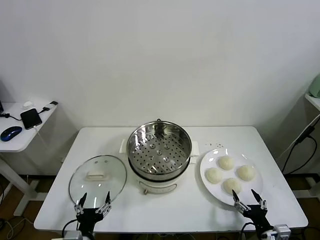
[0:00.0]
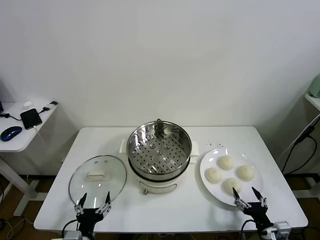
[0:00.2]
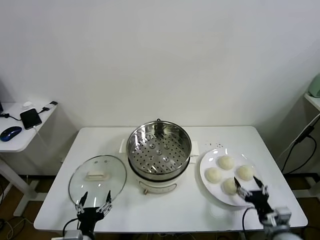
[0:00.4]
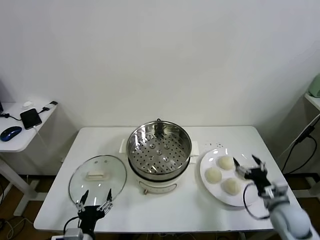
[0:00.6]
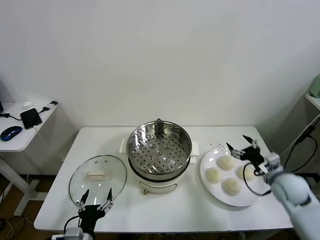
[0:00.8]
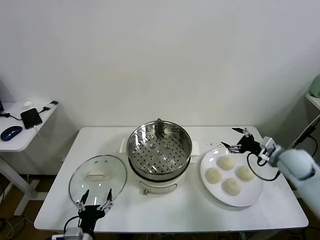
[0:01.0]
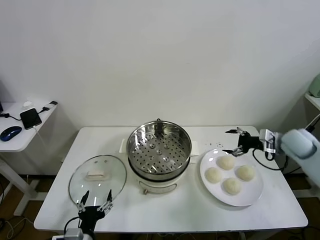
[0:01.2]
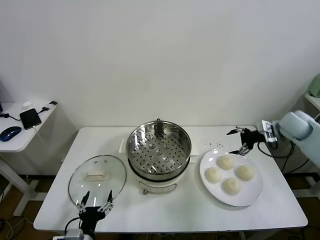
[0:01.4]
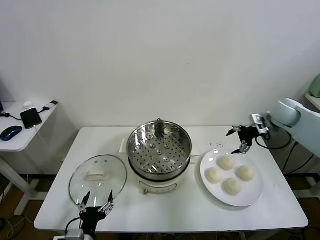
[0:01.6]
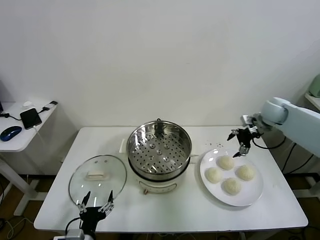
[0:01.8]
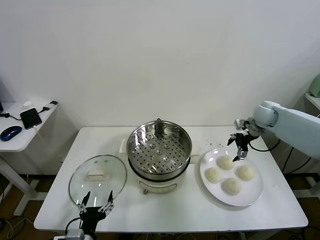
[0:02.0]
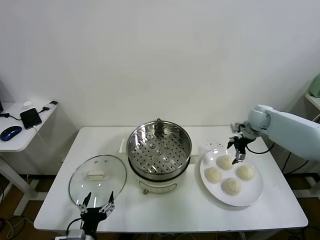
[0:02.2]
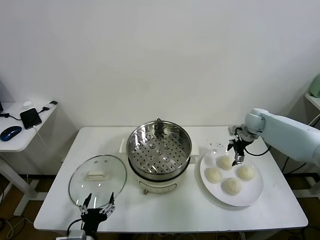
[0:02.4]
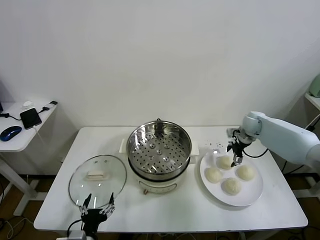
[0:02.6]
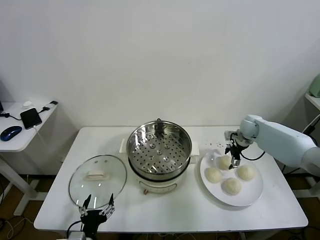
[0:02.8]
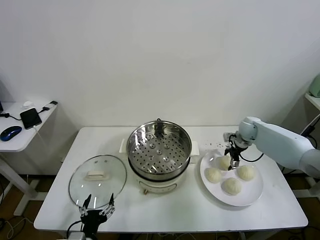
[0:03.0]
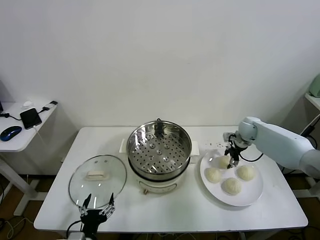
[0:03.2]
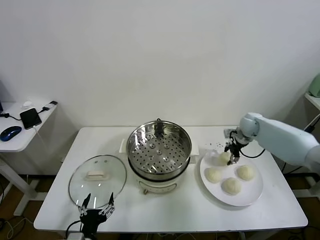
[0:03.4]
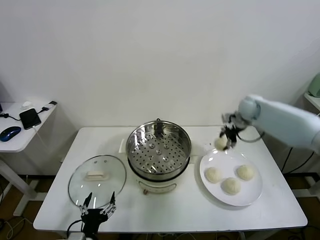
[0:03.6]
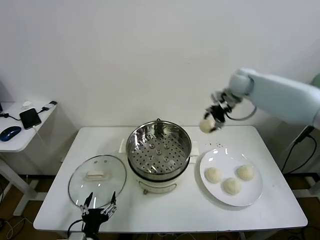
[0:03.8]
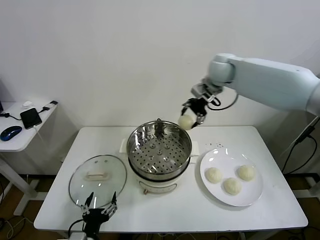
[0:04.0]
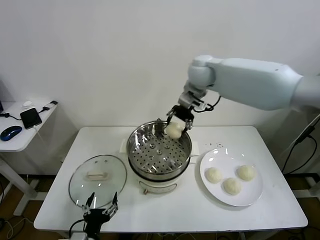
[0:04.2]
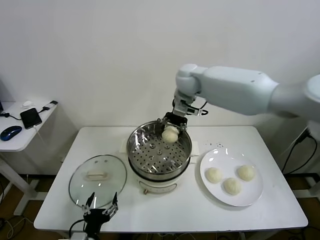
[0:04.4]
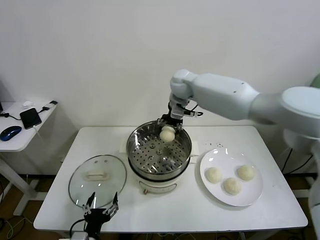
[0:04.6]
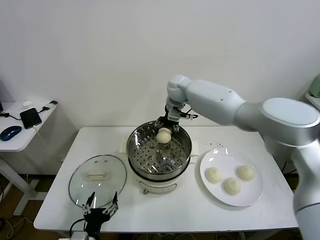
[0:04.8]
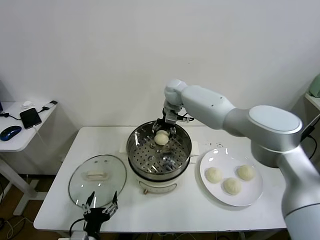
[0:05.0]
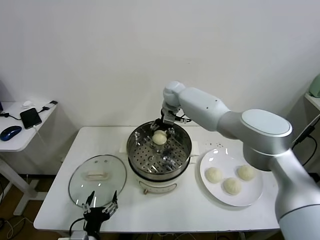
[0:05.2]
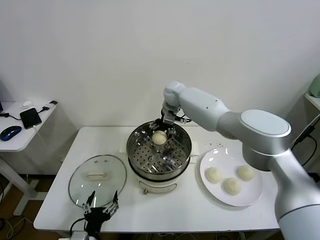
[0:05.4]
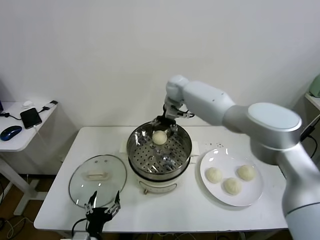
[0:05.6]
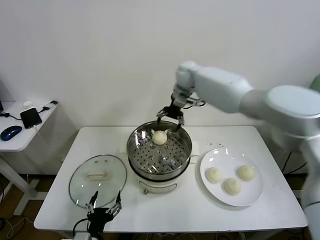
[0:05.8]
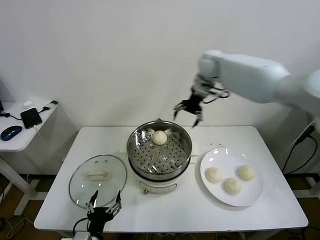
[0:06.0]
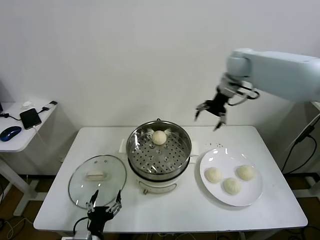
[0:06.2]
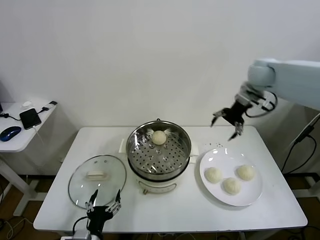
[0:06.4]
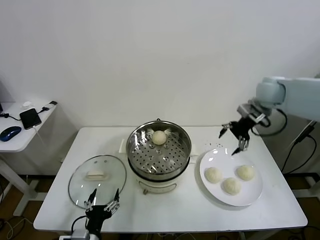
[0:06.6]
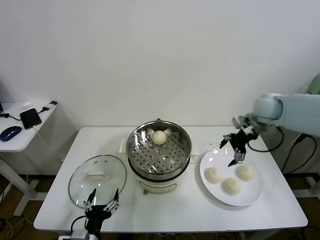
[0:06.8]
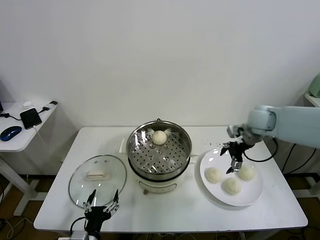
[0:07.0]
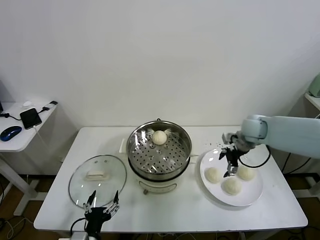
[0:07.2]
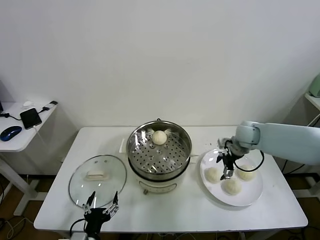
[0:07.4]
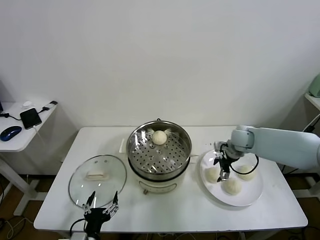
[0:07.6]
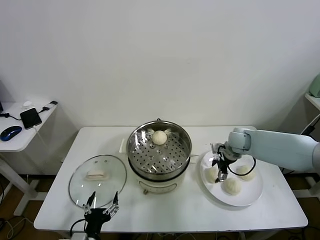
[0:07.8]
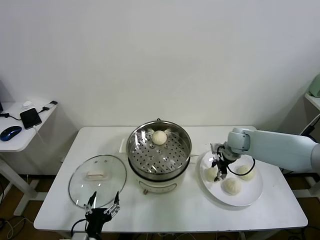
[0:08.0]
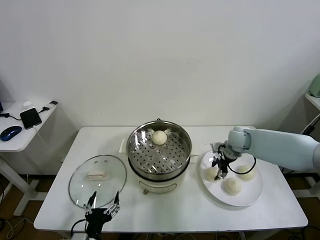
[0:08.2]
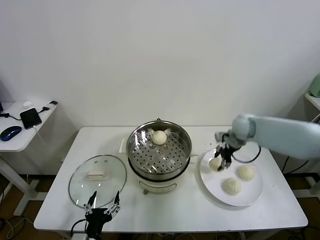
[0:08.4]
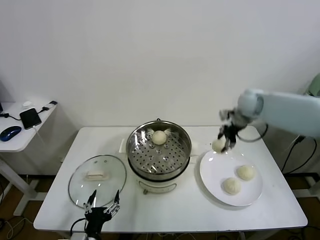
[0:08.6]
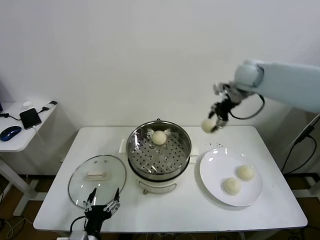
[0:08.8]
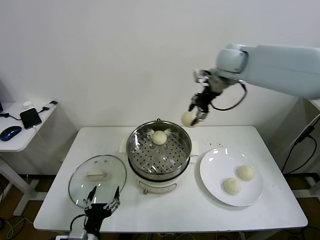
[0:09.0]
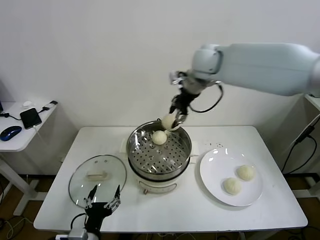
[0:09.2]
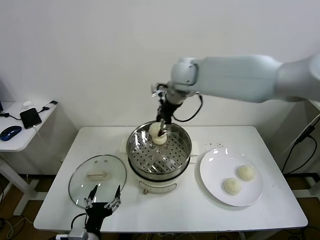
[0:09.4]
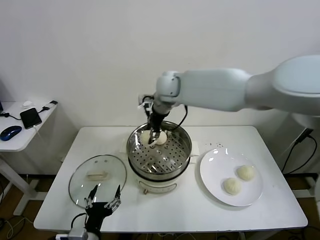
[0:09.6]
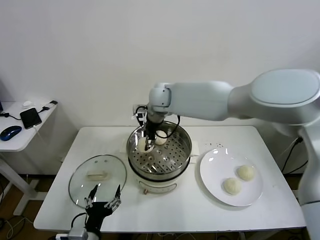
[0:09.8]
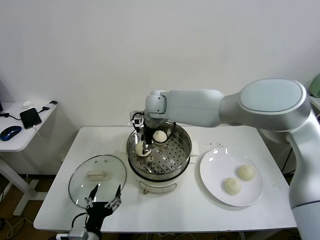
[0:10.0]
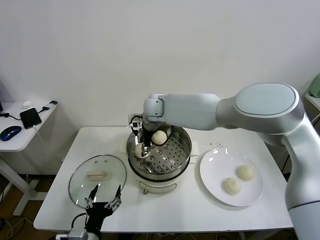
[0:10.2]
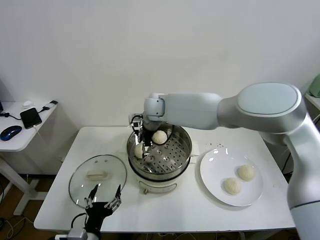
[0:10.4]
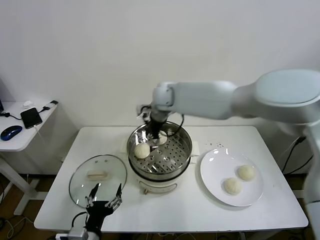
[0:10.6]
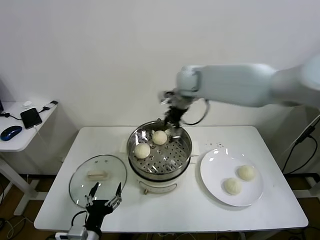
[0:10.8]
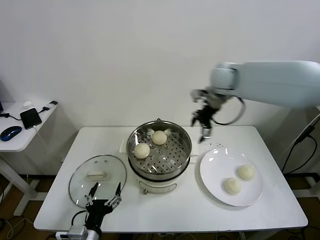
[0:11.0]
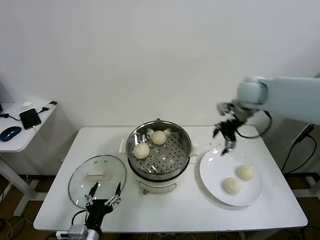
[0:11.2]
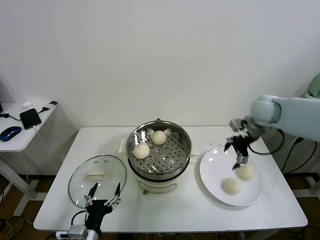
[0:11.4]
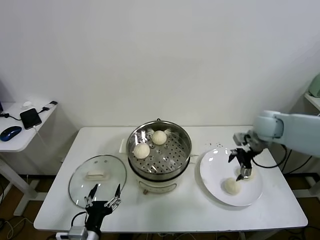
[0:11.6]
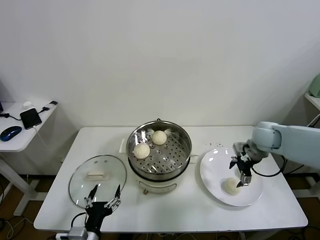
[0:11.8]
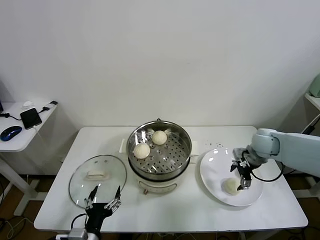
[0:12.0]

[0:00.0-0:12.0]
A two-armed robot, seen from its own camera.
Task of the whole recording: take steamed baozi put them in steamer.
Step, 0.0 to 3.0 s: Grasp the baozi in the plate with right gripper.
Step, 3.2 to 5.2 s: Place the baozi on the steamer with right gripper.
Step, 5.4 to 7.8 s: Grasp the baozi in the plate with right gripper.
Step, 8.0 to 10.2 s: Place the baozi on the steamer with right gripper.
1.6 to 3.0 s: The right gripper shifts some 10 cm downward, and closes its fingers.
3.0 to 4.4 s: The right gripper travels to the left and upward by approximately 35 cm.
4.4 to 6.0 s: The right gripper goes roughly 20 cm to the right, and opens its fingers.
6.0 to 7.6 s: The right gripper moves downward, about 25 cm.
7.6 to 9.0 s: The right gripper travels upward and to the left by approximately 35 cm, and closes.
9.0 to 10.4 s: The right gripper goes approximately 20 cm to the left and downward, and opens its fingers.
10.4 to 12.0 s: The right gripper goes approximately 35 cm to the right.

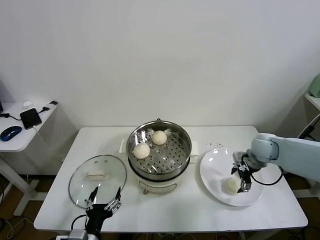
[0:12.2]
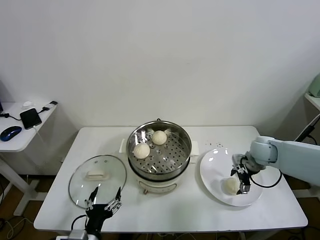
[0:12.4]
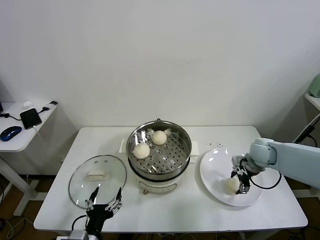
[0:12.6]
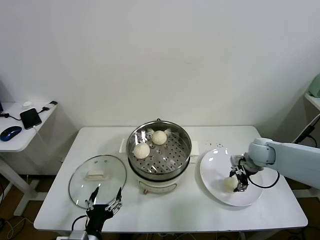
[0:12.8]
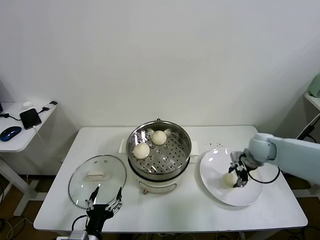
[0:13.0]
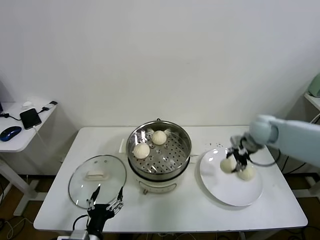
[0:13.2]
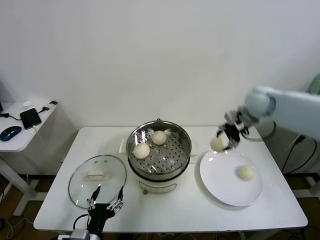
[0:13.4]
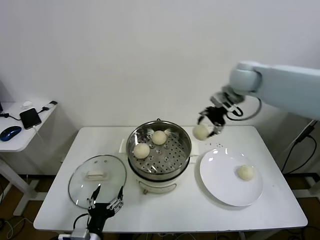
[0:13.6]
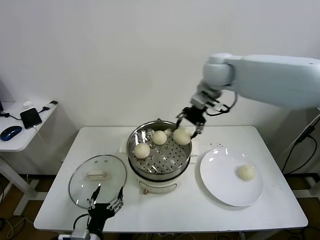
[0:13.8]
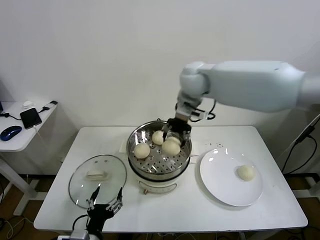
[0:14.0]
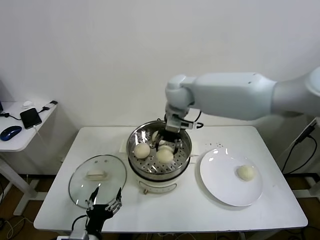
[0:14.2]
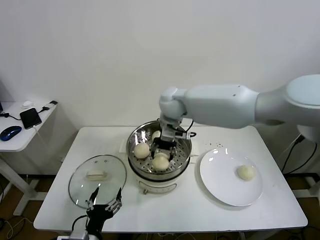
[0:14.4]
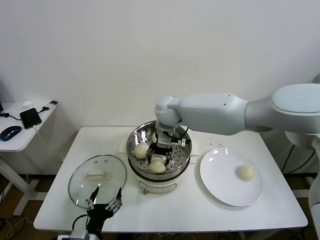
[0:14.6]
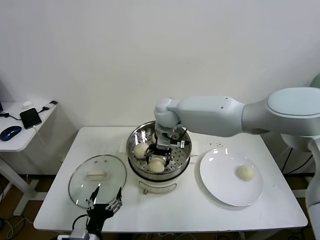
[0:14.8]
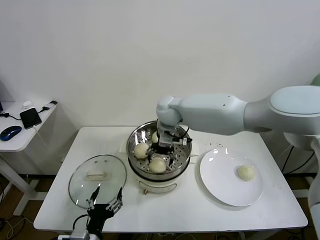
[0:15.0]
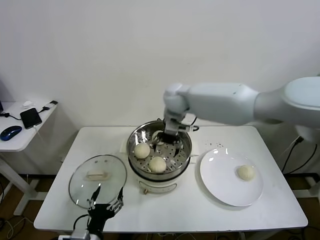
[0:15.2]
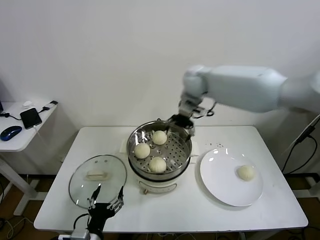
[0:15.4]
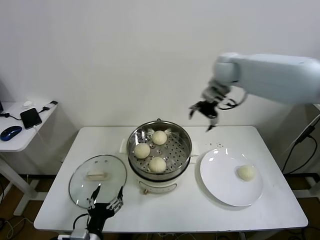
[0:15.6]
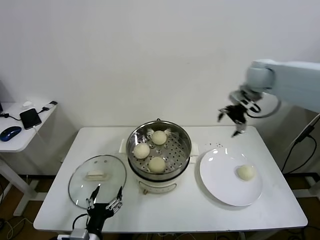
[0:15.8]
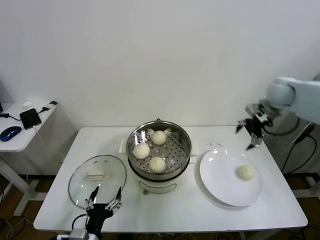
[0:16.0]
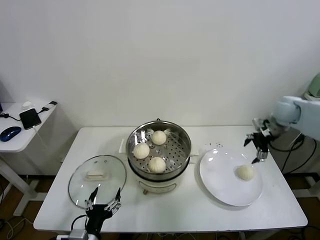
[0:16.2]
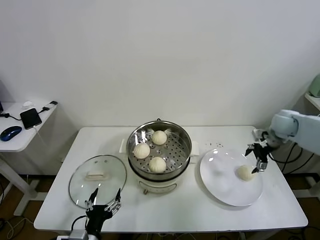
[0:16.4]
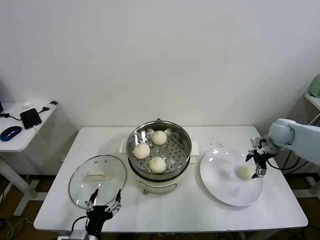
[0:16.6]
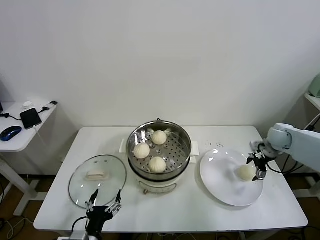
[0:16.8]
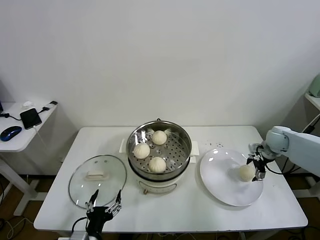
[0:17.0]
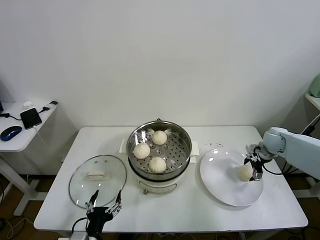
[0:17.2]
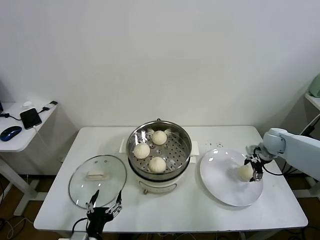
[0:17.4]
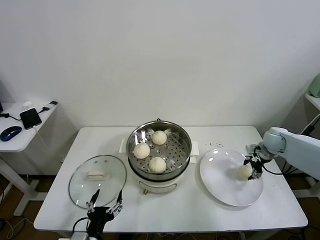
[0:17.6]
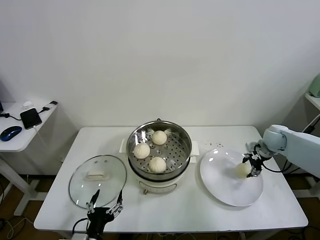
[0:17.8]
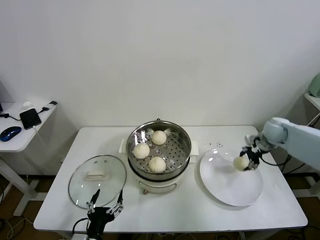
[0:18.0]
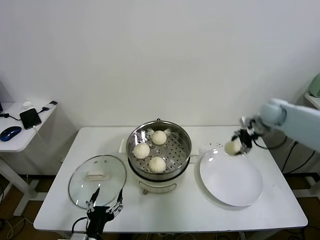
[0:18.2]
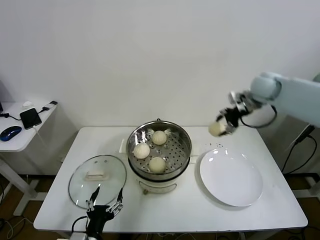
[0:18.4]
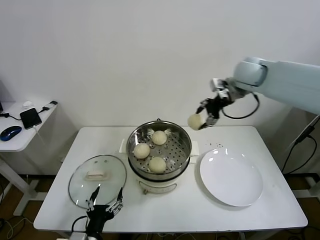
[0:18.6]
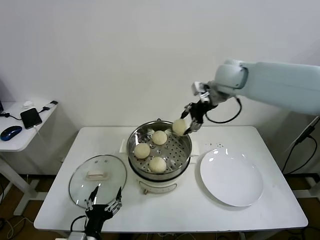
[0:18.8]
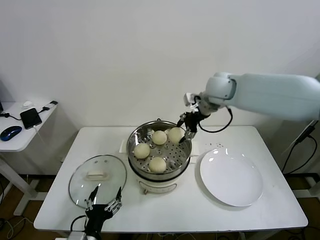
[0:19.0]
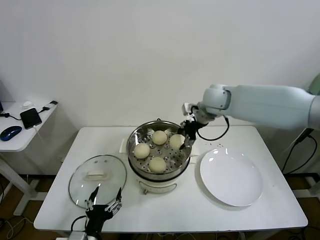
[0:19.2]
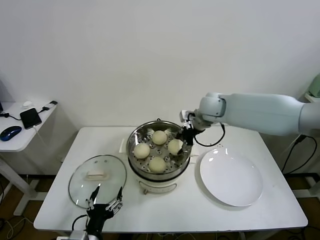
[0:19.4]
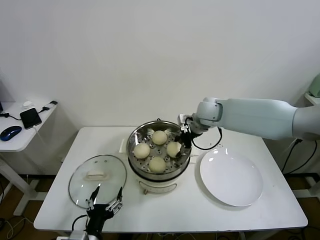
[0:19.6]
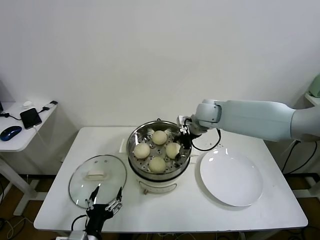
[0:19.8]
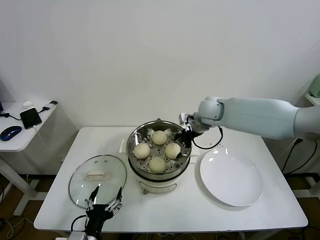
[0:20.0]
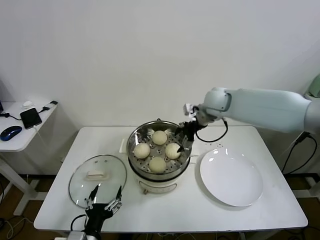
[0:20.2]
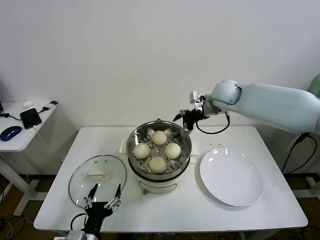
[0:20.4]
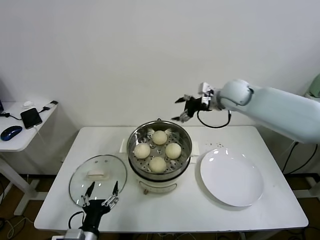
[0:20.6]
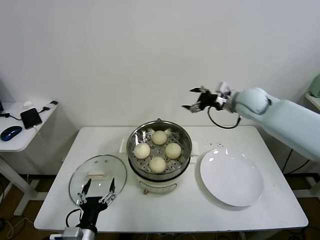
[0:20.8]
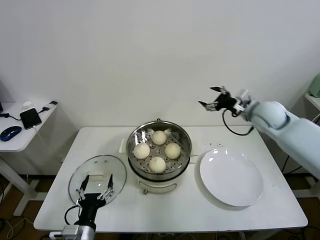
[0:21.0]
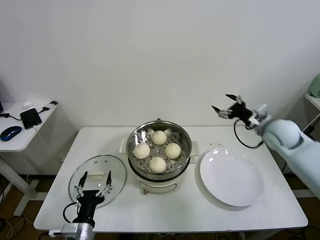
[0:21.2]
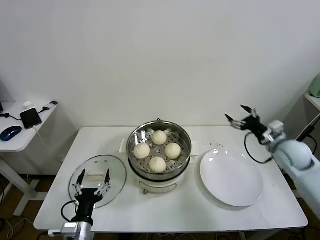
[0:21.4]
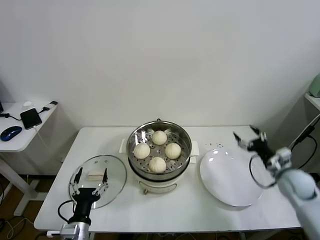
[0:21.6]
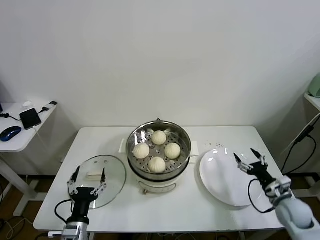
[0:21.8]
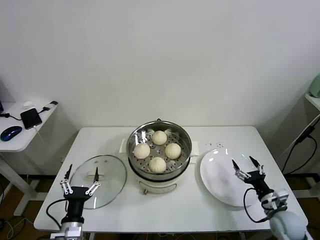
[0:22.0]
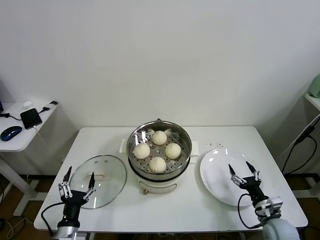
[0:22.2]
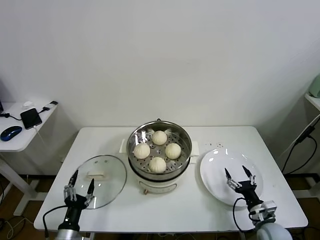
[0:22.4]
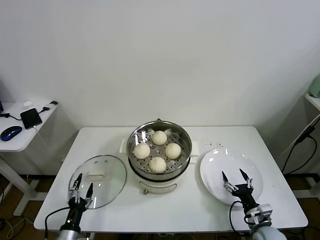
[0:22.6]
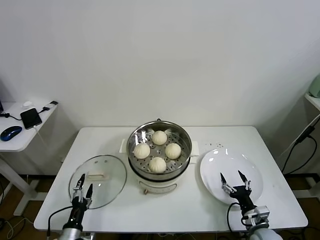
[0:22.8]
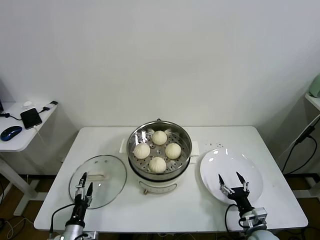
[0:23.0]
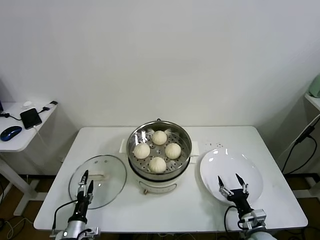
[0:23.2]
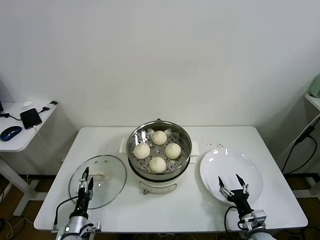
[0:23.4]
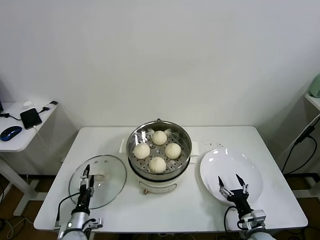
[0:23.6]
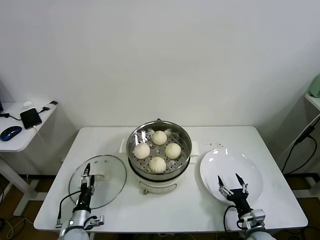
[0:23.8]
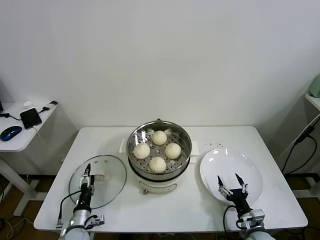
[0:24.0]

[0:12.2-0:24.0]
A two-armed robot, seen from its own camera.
Task of the whole recording: take steamed baozi put them in steamer.
Step, 13.0 to 15.0 s: Place the baozi on the steamer with right gripper.
Step, 15.2 to 17.4 s: Grasp the baozi in the plate with right gripper.
Step, 17.6 to 20.0 s: Place the baozi on the steamer with right gripper.
12.2 to 13.6 s: The right gripper travels upward and to the left by some 30 cm, and closes up.
13.6 to 15.2 s: The right gripper heads to the left and downward, covering some 15 cm, and opens up.
15.2 to 16.6 s: The right gripper shifts about 40 cm to the right and downward.
16.6 to 18.2 s: The right gripper shifts about 10 cm upward and to the left, and closes its fingers.
18.2 to 19.6 s: The right gripper shifts approximately 20 cm to the left.
19.6 to 21.0 s: The right gripper shifts roughly 20 cm to the right, and opens its fingers.
21.0 to 22.6 s: The left gripper moves downward and to the left, roughly 15 cm; the right gripper heads downward and backward, covering approximately 40 cm.
22.6 to 24.0 s: The left gripper is displaced forward by about 10 cm.
